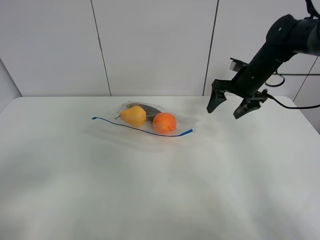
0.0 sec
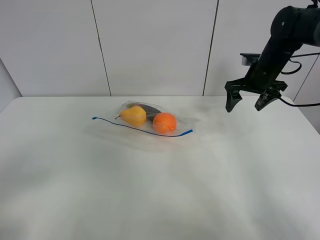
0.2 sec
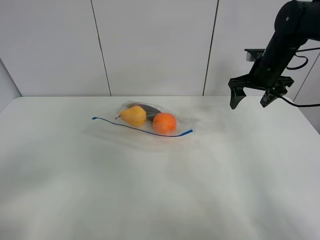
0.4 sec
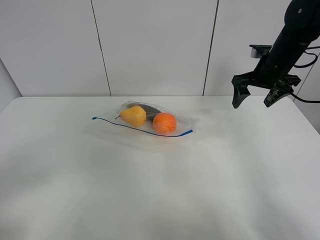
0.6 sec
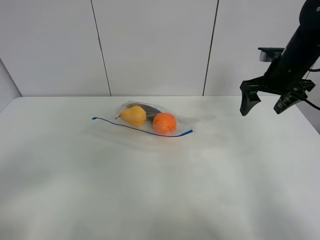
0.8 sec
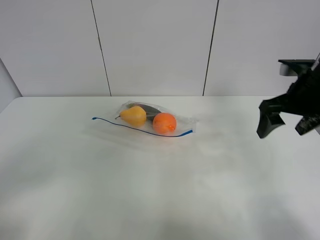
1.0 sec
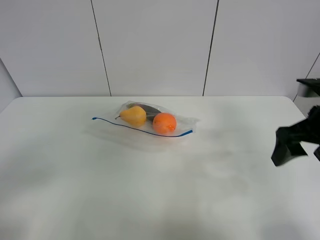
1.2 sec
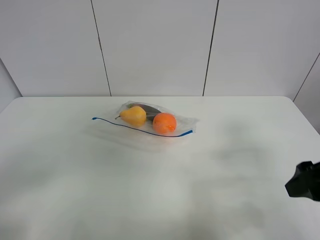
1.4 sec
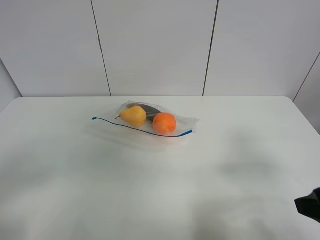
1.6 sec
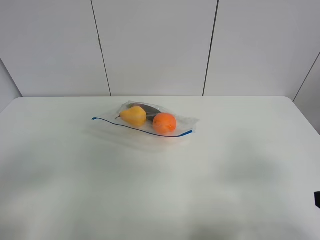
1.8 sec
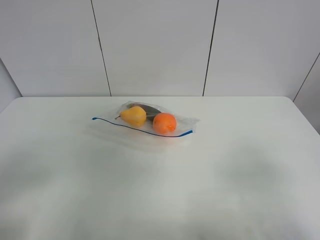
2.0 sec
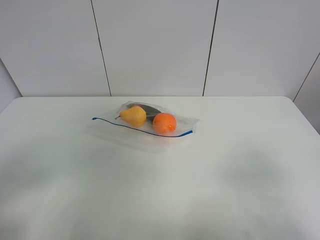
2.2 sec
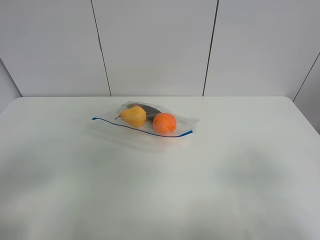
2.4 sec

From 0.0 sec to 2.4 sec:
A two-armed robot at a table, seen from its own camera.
From 0.0 sec to 1.2 sec: The right gripper is displaced backward by roughly 20 cm.
From 1.2 sec to 2.4 sec: The right gripper heads backward, covering about 20 cm.

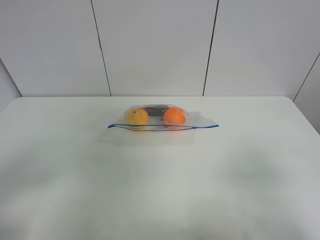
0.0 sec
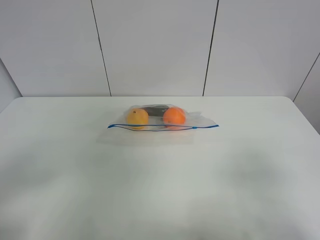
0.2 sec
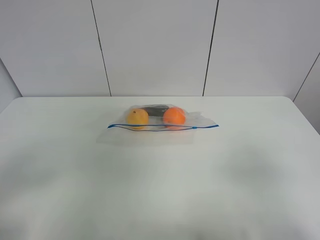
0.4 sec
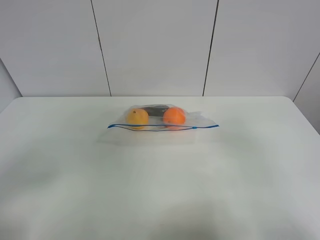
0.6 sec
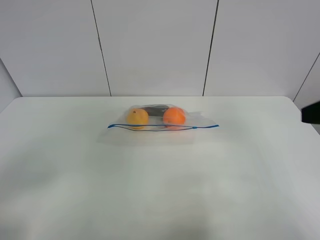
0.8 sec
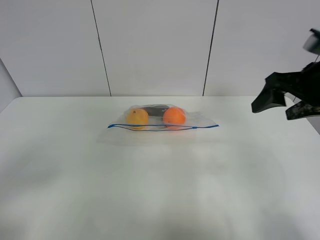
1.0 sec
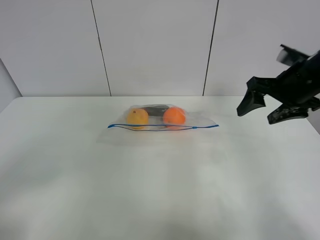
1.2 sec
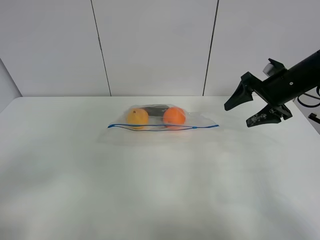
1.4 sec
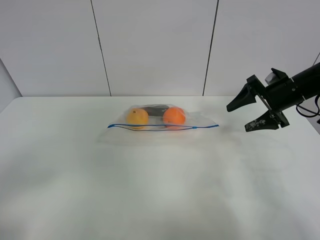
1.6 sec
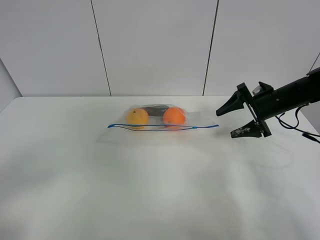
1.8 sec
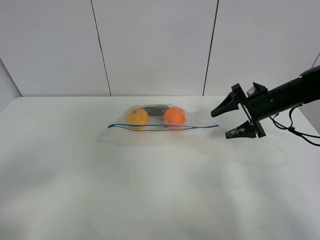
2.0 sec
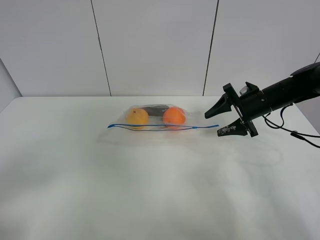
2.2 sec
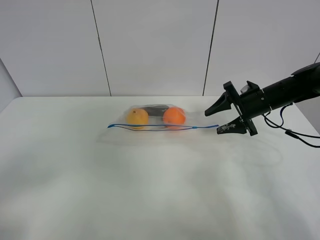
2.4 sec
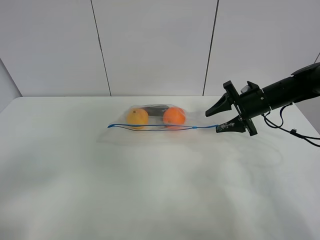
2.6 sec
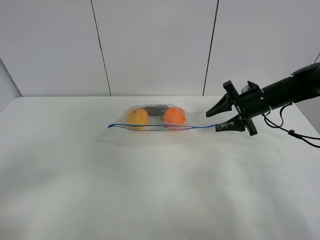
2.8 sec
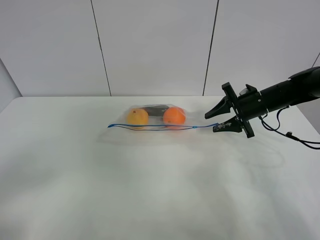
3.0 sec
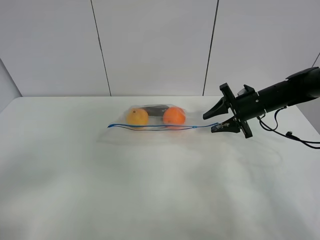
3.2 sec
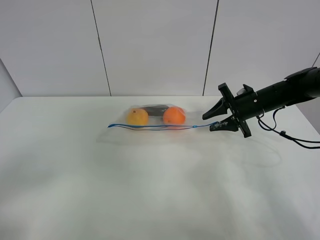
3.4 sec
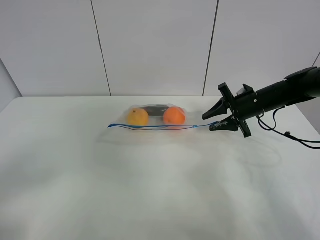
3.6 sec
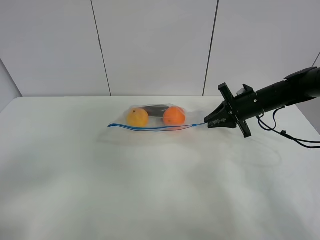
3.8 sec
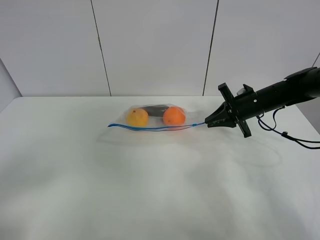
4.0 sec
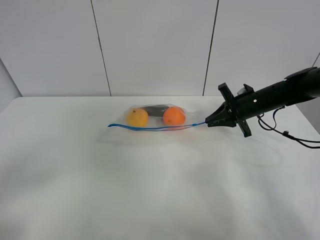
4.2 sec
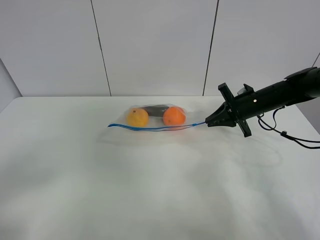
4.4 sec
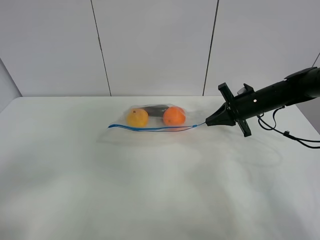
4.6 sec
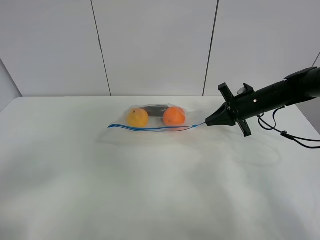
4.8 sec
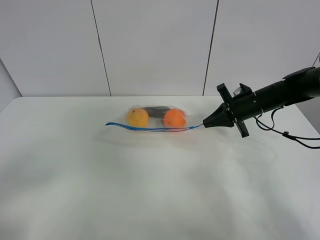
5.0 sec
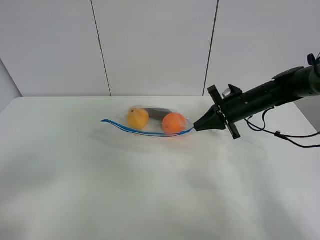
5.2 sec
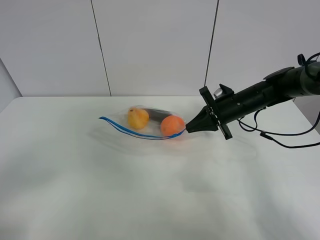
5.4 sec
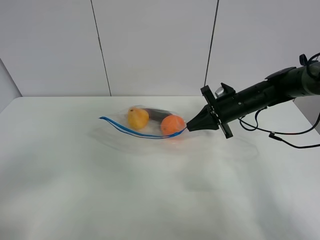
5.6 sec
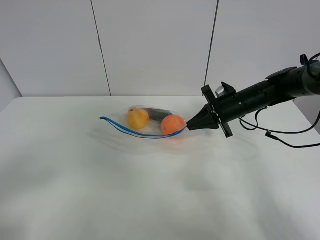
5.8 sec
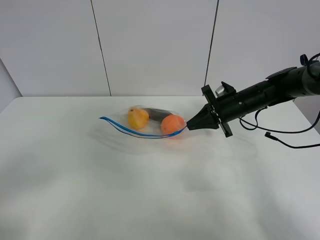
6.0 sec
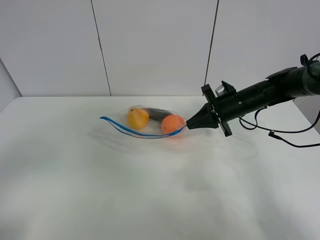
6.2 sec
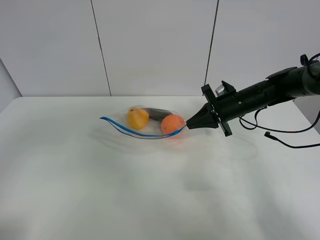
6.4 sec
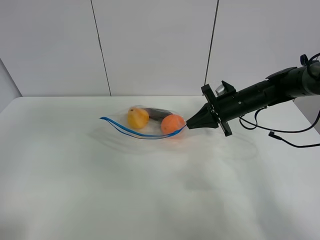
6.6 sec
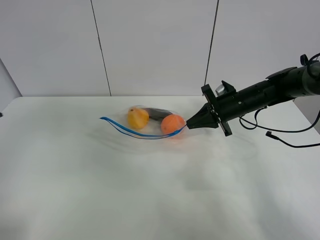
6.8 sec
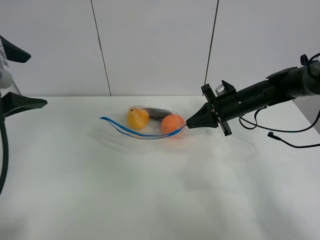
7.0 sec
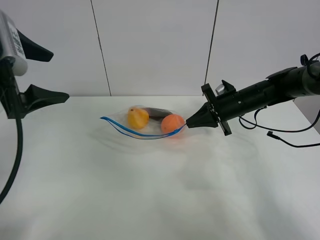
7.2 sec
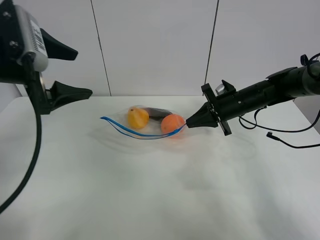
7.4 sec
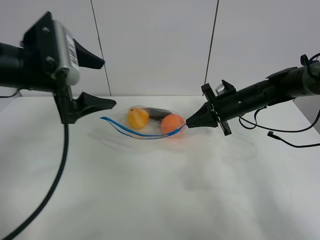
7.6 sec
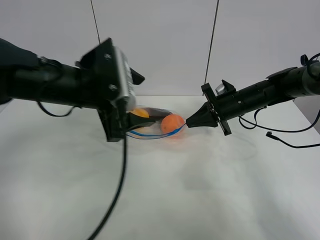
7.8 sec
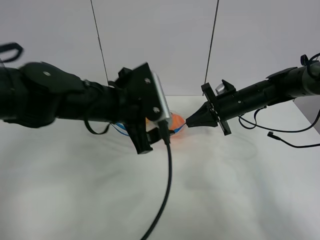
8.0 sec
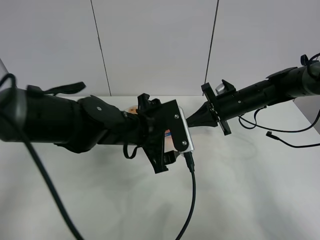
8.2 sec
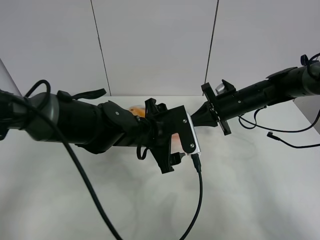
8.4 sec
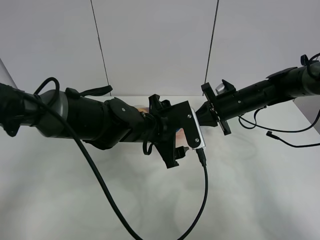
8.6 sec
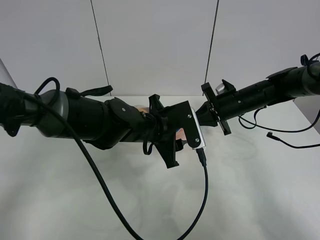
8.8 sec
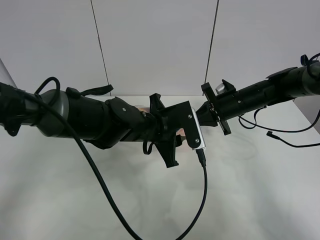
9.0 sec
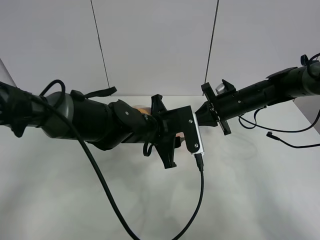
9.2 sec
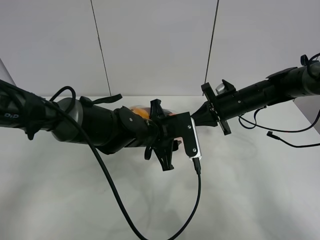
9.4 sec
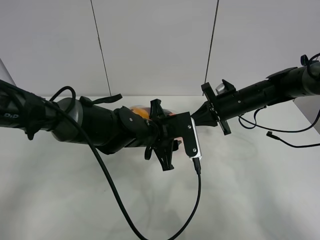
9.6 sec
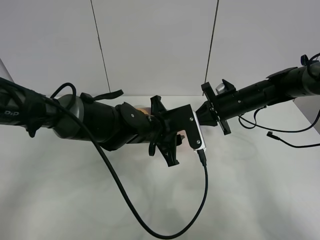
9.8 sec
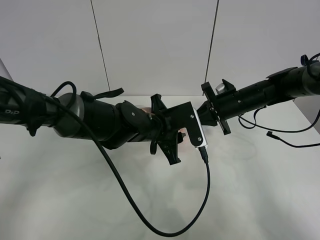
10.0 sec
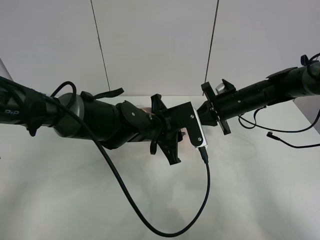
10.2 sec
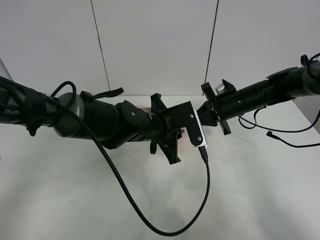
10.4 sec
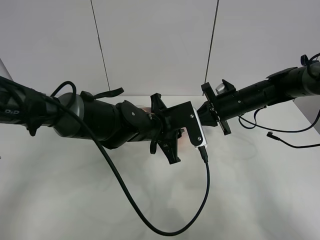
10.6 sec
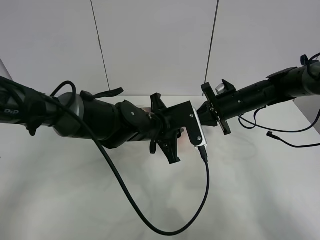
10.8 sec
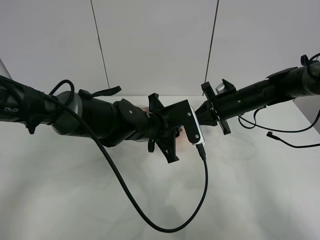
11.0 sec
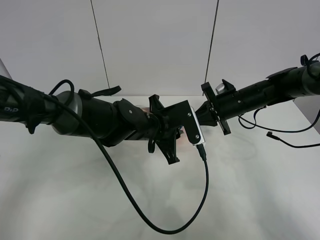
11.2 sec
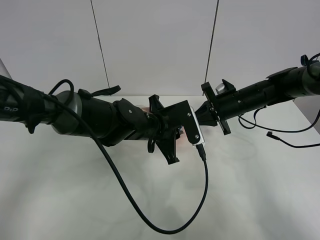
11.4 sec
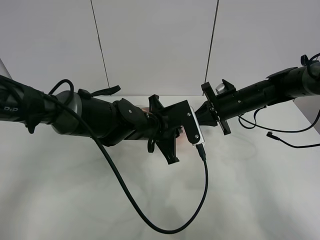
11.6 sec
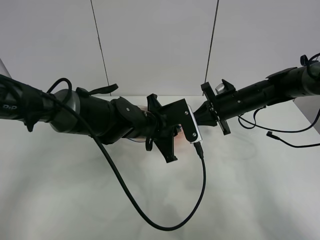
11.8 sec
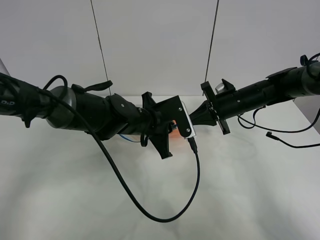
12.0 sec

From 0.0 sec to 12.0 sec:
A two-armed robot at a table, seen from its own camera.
Step, from 0.0 sec to 4.4 sec: Grasp the fruit bag with right gripper.
Step, from 4.6 sec to 5.6 sec: Lift the fruit bag with your right gripper.
From 0.0 sec to 1.6 sec: The right gripper moves forward, roughly 35 cm.
From 1.6 sec to 3.0 sec: The right gripper moves roughly 5 cm, and closes up.
From 3.0 sec to 4.4 sec: The right gripper closes up.
From 4.4 sec to 6.0 sec: The right gripper shifts approximately 5 cm to the left.
From 6.0 sec to 7.6 sec: The left gripper is displaced forward and to the right by some 30 cm.
From 7.6 sec to 9.0 sec: The left gripper is displaced to the right and downward by about 20 cm, and closes.
From 9.0 sec to 12.0 sec: The grippers make only small movements.

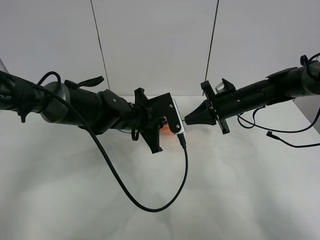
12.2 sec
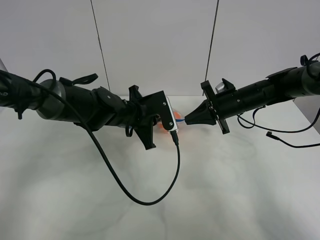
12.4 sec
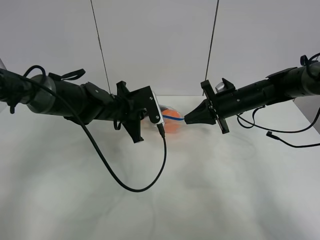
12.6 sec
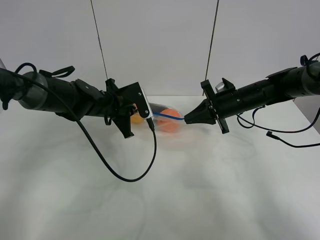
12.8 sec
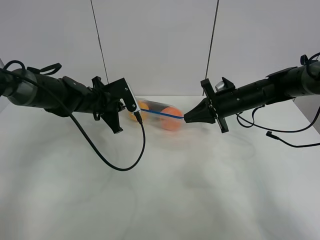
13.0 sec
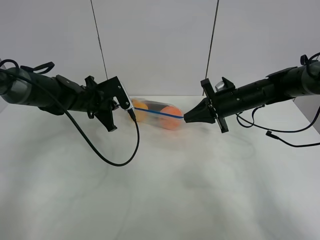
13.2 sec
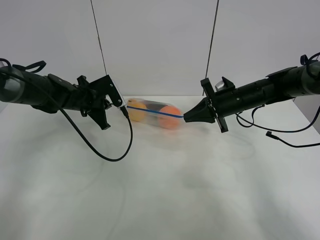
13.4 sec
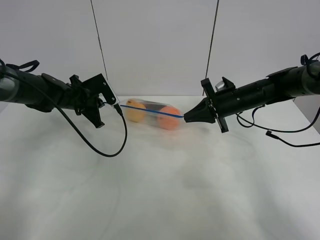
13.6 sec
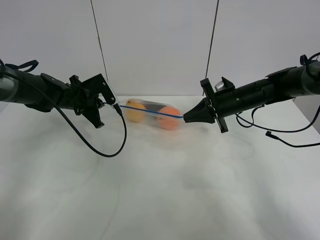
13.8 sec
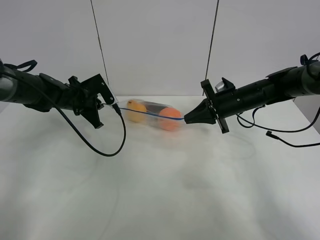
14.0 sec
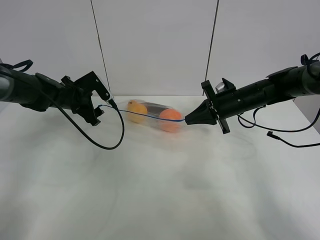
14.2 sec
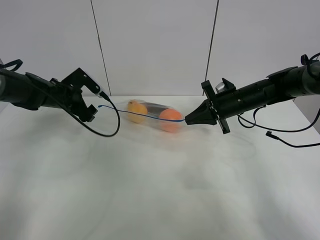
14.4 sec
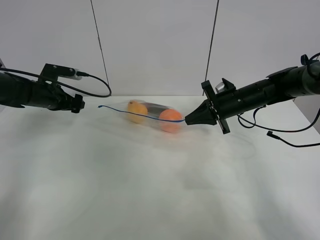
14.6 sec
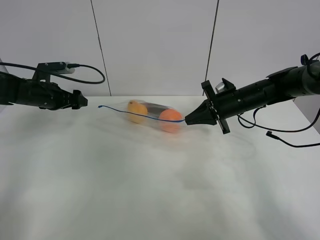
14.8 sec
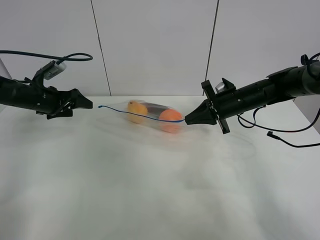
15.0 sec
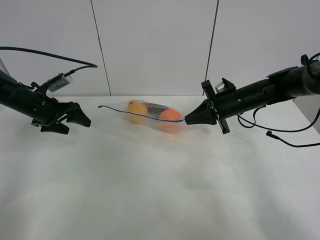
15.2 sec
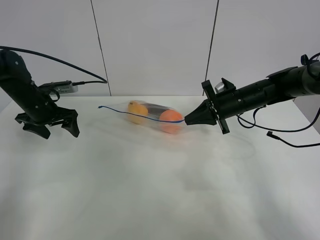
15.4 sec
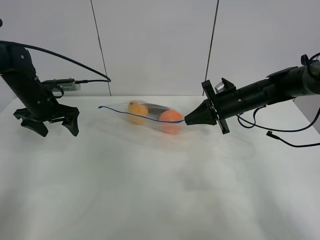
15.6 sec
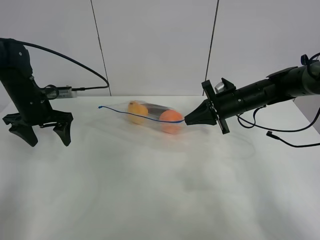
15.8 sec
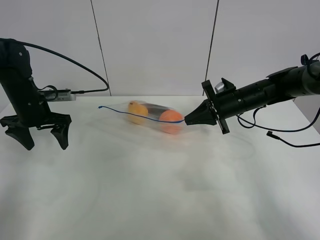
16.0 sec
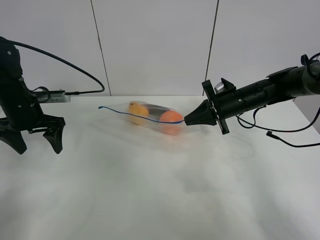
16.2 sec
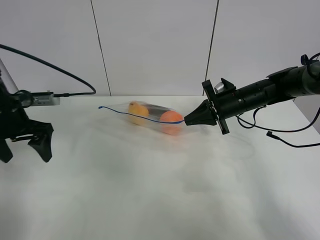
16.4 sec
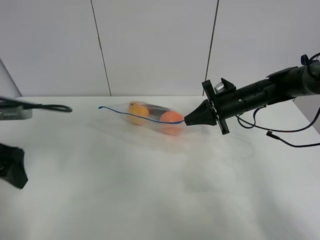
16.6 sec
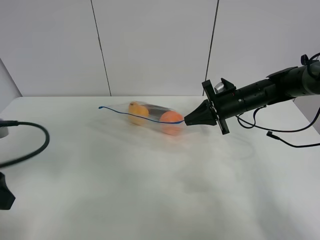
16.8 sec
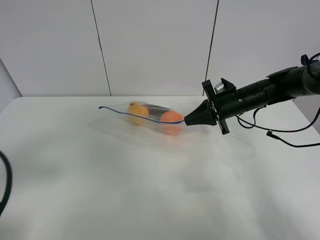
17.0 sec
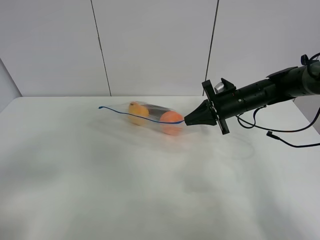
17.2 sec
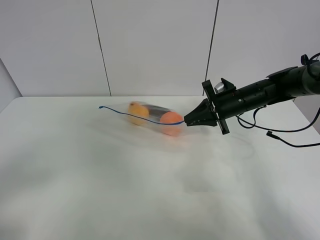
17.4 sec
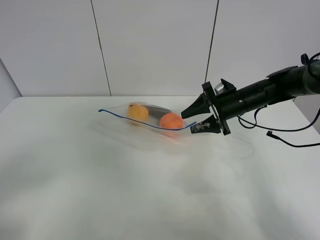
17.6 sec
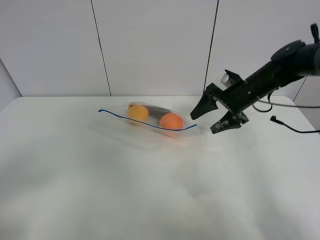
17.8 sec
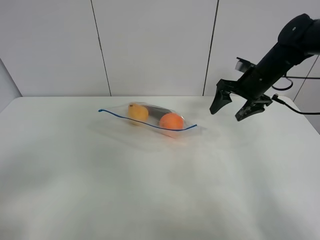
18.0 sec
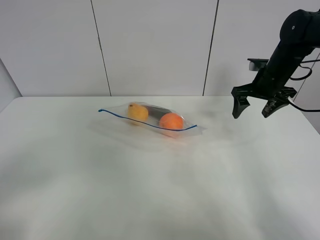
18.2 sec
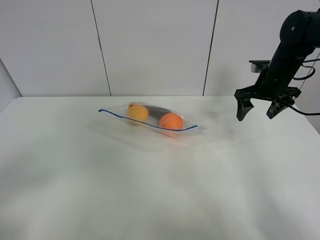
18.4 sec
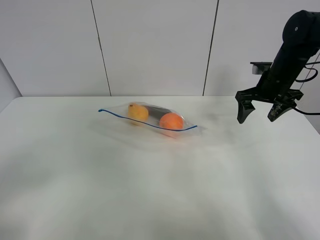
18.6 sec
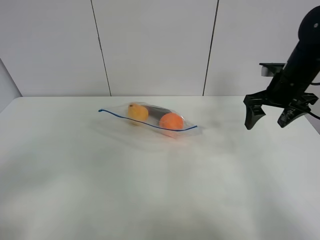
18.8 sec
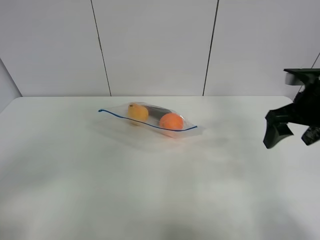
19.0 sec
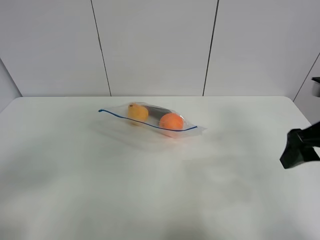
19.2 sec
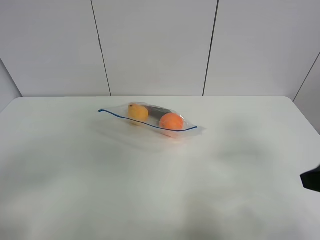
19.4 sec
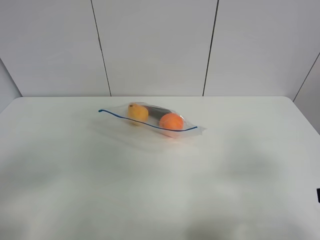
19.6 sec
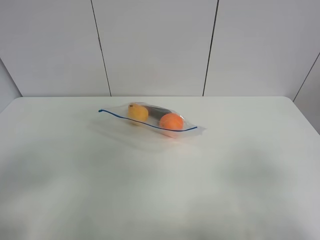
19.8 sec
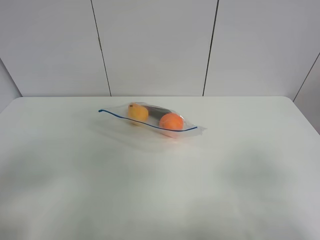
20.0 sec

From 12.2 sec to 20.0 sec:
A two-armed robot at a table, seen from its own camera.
Step, from 12.2 sec to 14.2 sec: Pull the fruit bag with left gripper.
From 12.2 sec to 13.8 sec: The left gripper goes some 15 cm to the left.
From 13.8 sec to 15.4 sec: The left gripper shifts some 5 cm to the left, and opens up.
From 15.4 sec to 16.8 sec: The left gripper is displaced backward by some 25 cm.
From 16.8 sec to 18.4 sec: The left gripper goes about 10 cm backward. Meanwhile the right gripper heads to the right and upward, covering some 10 cm, and opens its fingers.
From 18.4 sec to 20.0 sec: The right gripper shifts roughly 40 cm backward.
